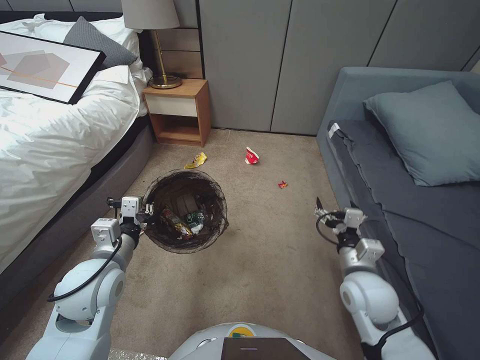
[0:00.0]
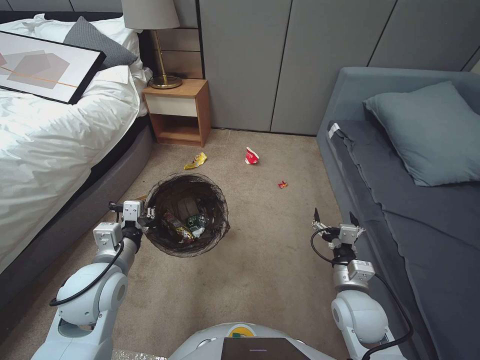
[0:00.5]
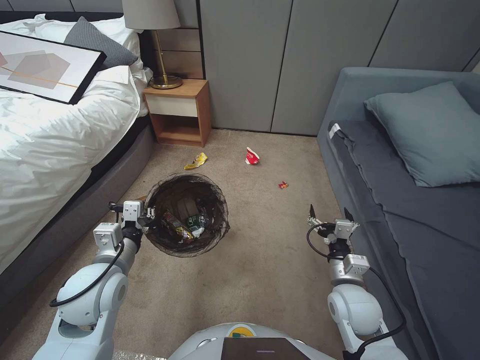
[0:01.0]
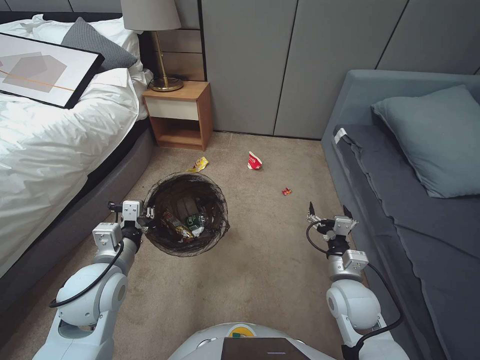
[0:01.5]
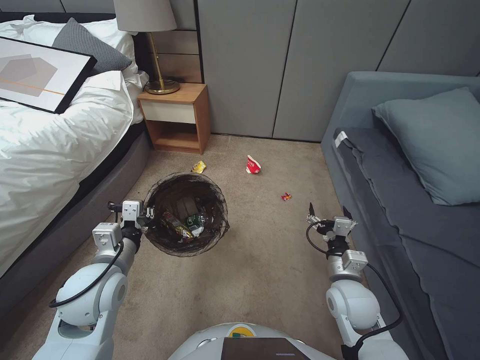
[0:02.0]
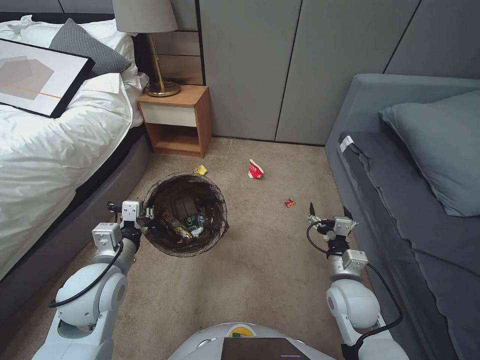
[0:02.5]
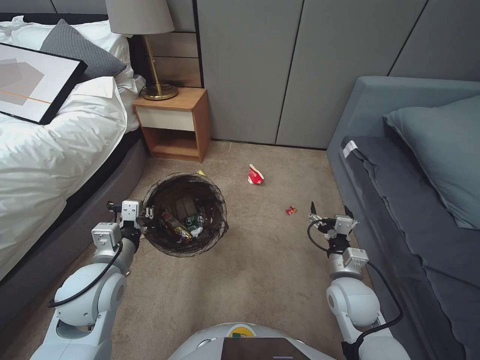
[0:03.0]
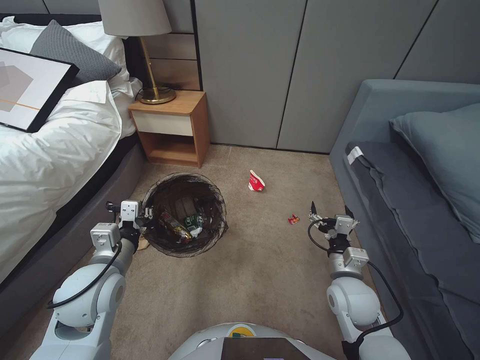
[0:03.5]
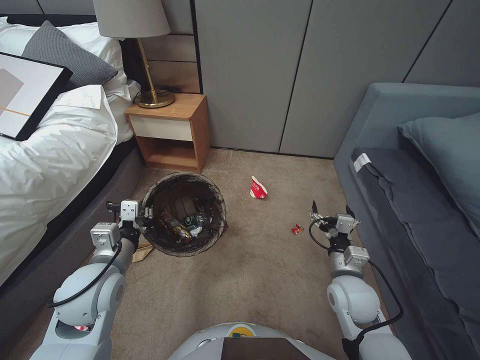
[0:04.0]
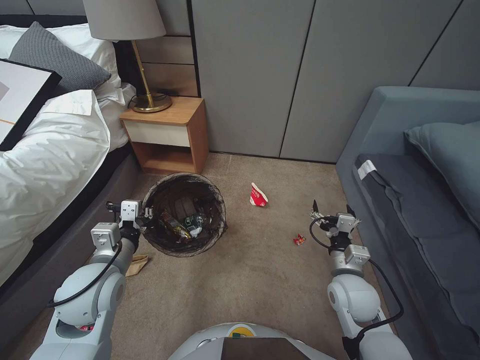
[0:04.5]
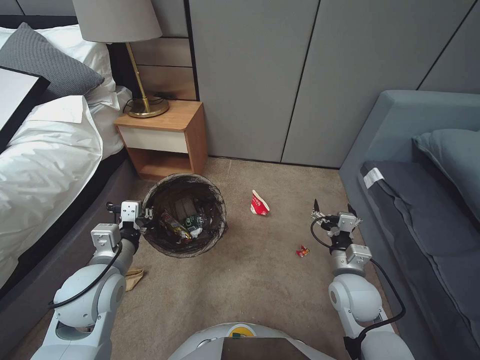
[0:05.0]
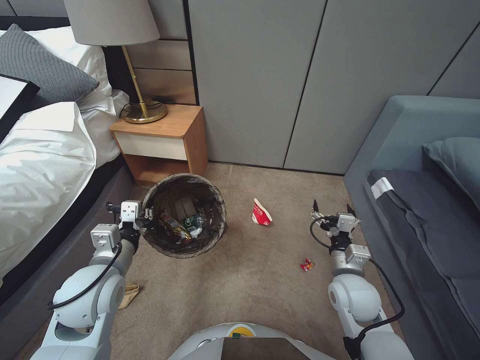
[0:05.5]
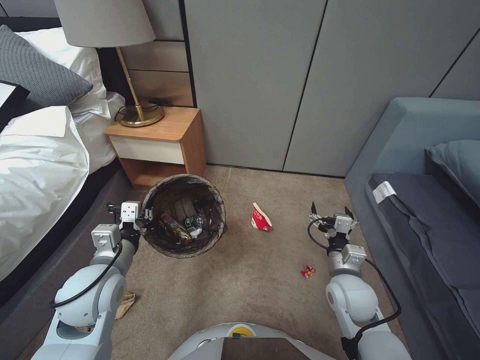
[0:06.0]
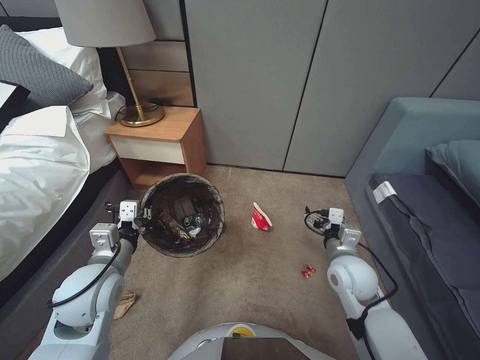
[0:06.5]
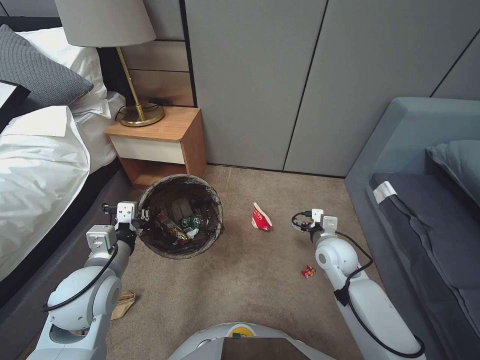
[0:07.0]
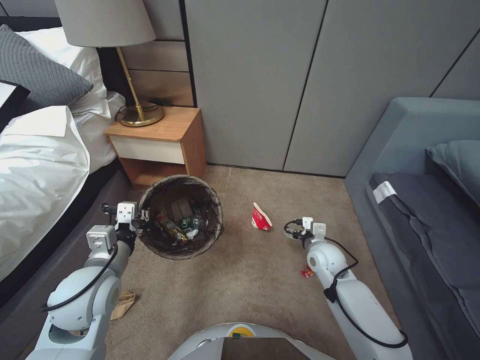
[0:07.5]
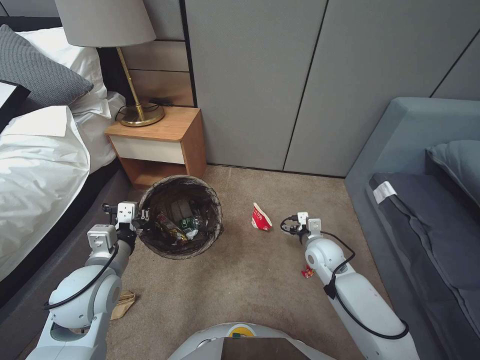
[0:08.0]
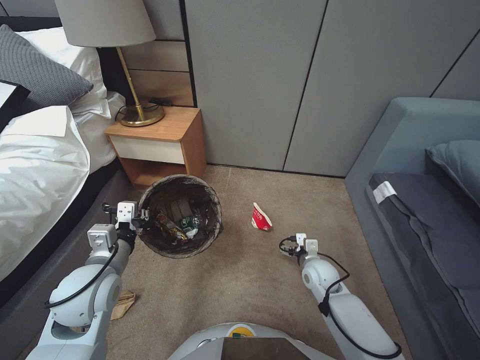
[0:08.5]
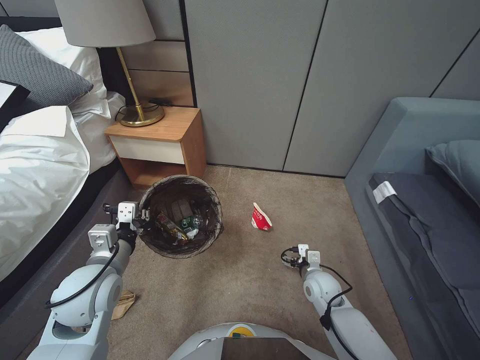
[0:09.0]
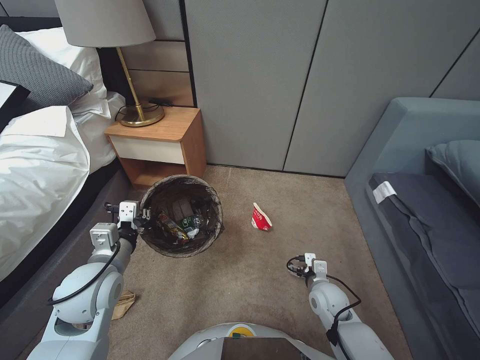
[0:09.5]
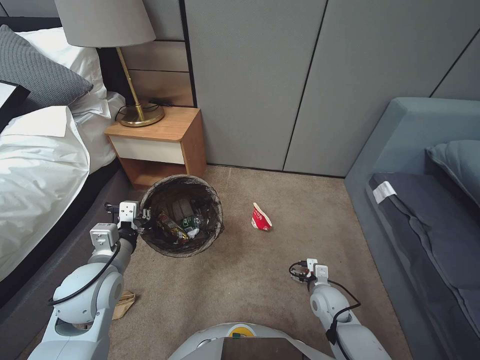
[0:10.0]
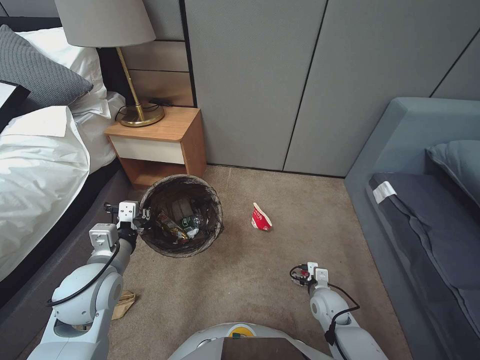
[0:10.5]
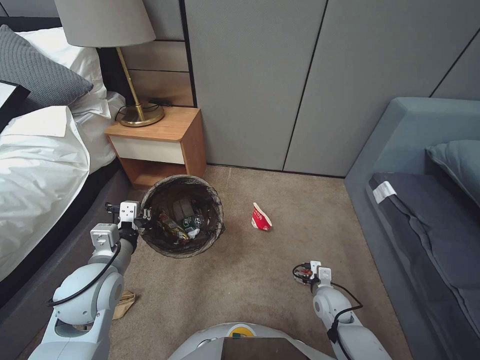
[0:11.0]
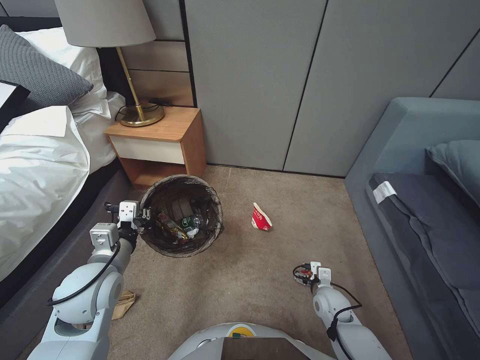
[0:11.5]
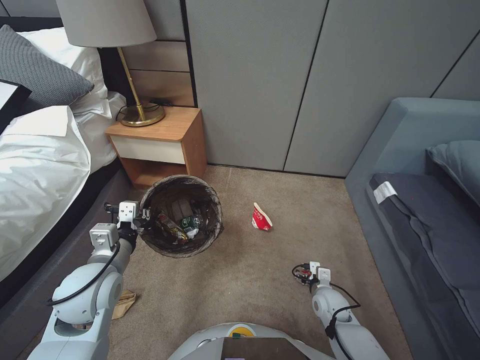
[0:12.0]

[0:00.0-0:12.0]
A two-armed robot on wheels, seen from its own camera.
Task of the whole recording: Pick up the trash bin, then pick up the garbage from the floor and place it into the trash bin.
0:00.0 to 0:02.0: The right gripper travels downward by approximately 5 cm.
0:06.0 to 0:08.0: The right gripper heads forward, covering about 10 cm.
0:08.0 to 0:10.0: The right gripper goes roughly 15 cm downward and backward.
0:10.0 to 0:12.0: There are only small adjustments of the grippers.

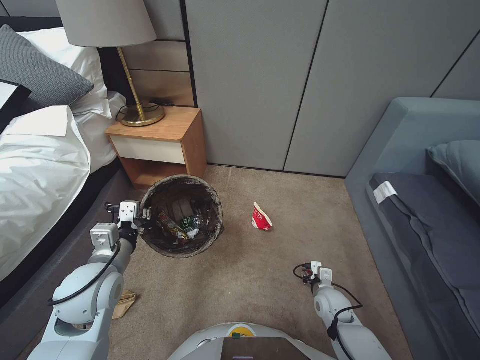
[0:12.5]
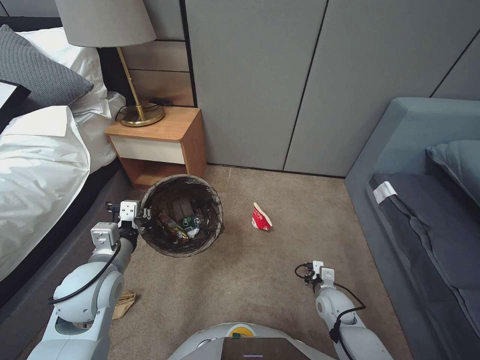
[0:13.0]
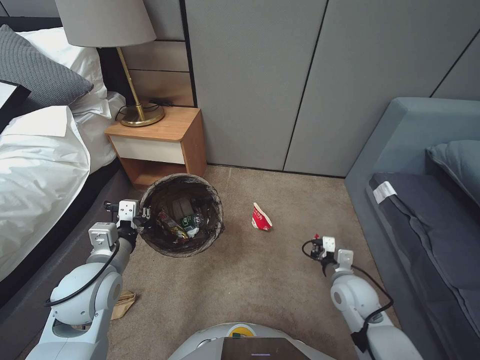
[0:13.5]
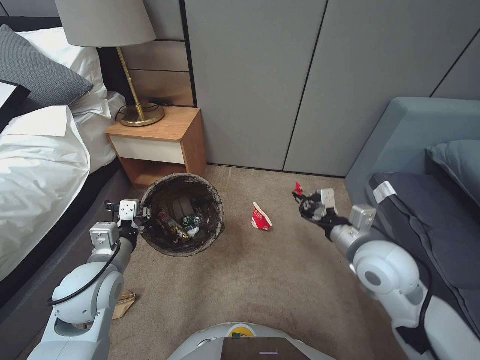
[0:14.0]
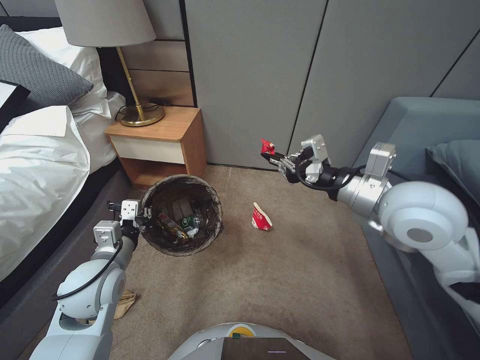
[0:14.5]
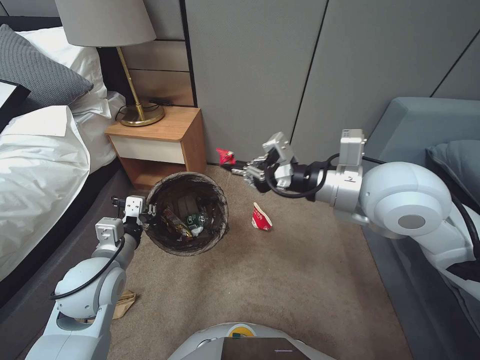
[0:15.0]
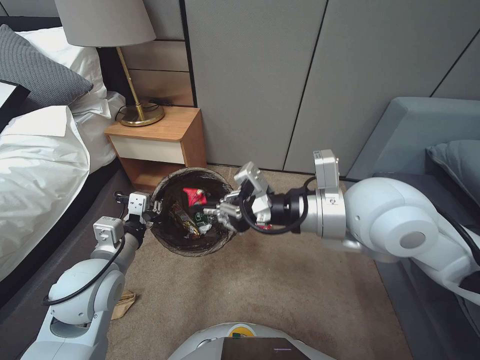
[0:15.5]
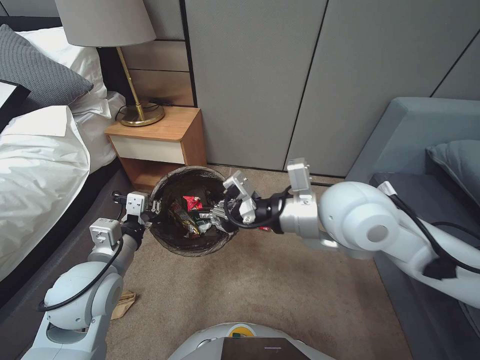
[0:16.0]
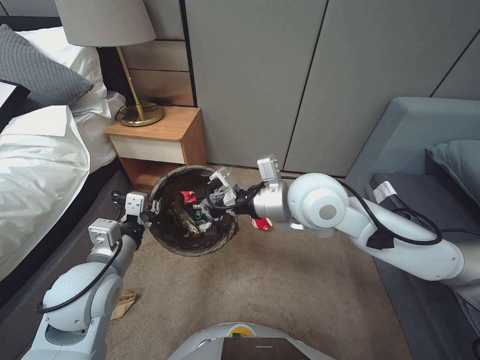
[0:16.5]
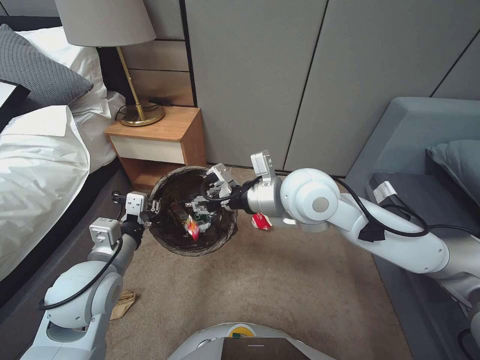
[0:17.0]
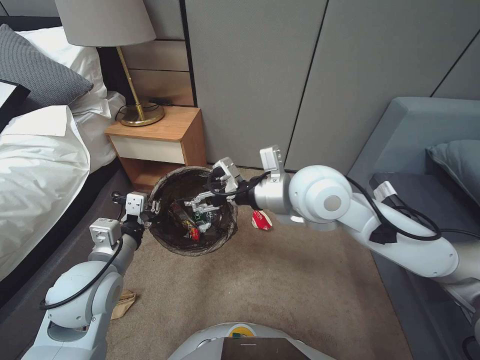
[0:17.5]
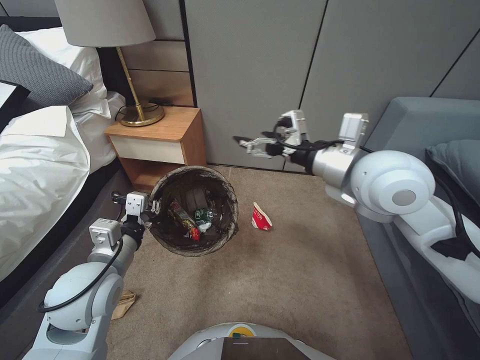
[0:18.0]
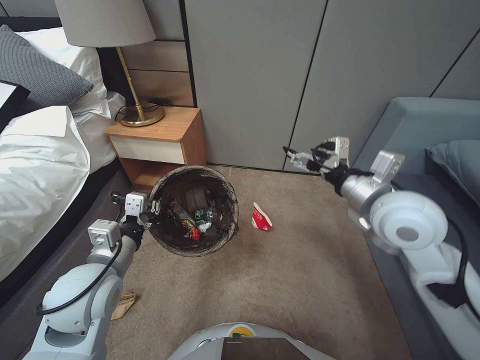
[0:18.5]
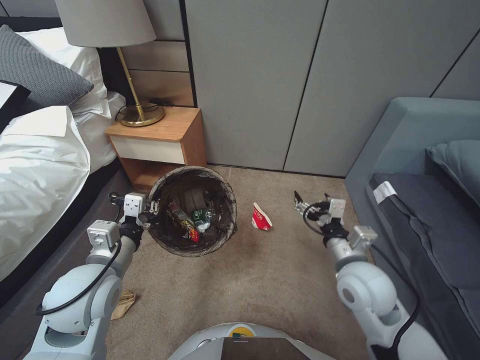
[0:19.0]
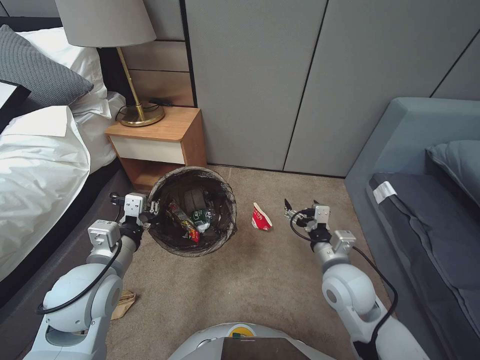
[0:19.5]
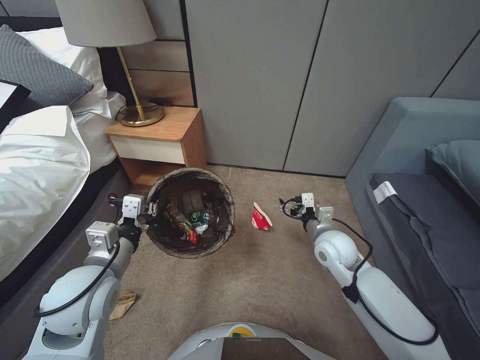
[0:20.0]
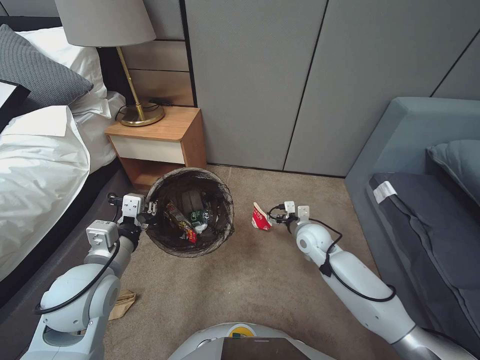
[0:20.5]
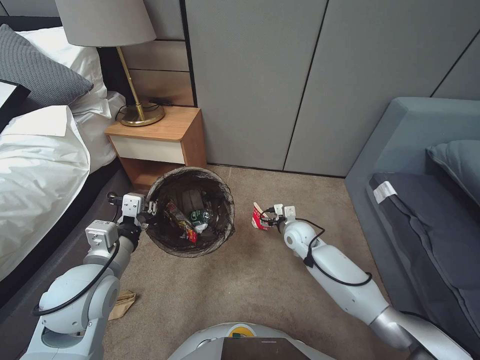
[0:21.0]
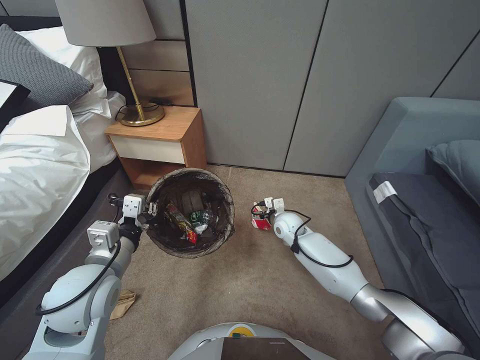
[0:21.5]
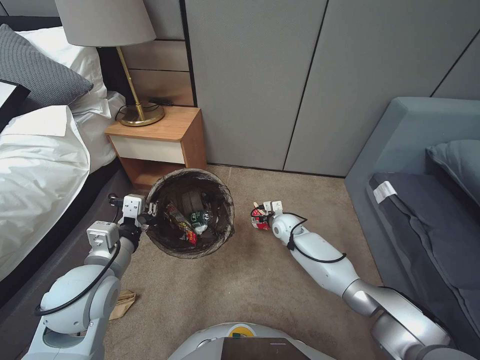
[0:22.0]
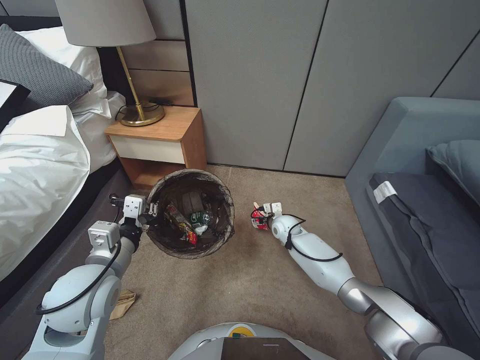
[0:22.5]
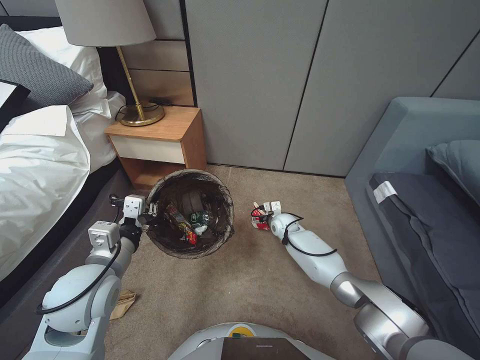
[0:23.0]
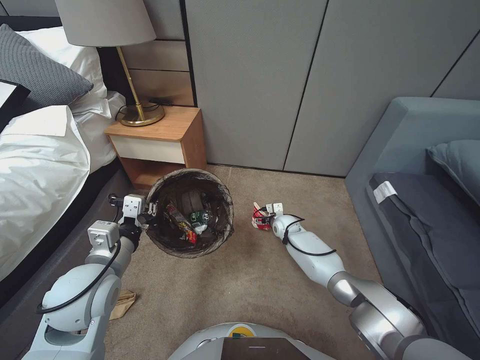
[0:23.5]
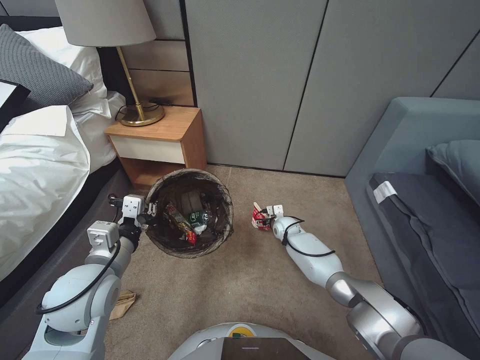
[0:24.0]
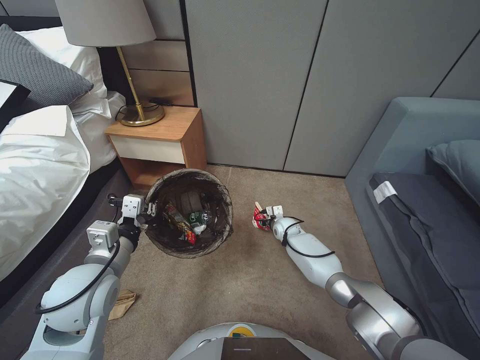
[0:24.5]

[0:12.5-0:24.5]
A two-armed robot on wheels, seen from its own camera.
Task of the whole recording: Pick up the trash bin, then pick up the garbage from the floor and place it into the trash bin.
0:12.5 to 0:14.5: The right gripper goes about 40 cm upward, and closes up.
0:14.5 to 0:16.5: The right gripper travels to the left by about 15 cm.
0:16.5 to 0:18.5: The right gripper travels to the right by some 15 cm, and opens its fingers.
0:18.5 to 0:20.5: The right gripper travels downward by roughly 25 cm.
0:20.5 to 0:22.5: The right gripper is displaced downward, forward and to the left by roughly 15 cm.
0:22.5 to 0:24.5: The right gripper closes.

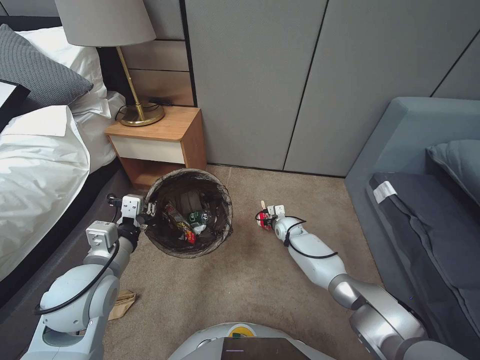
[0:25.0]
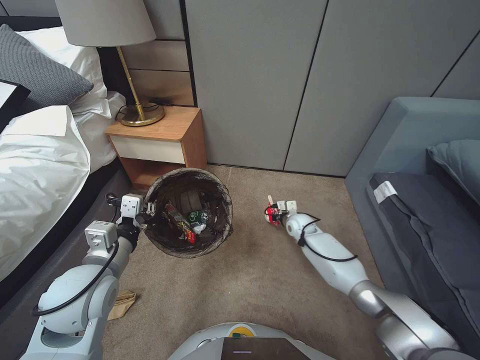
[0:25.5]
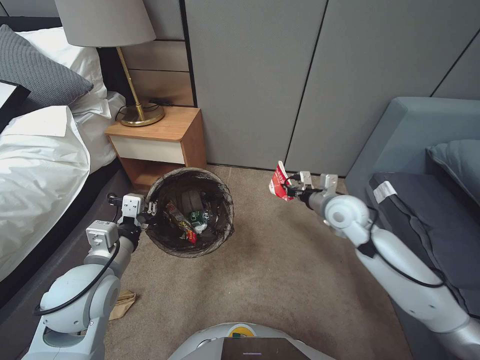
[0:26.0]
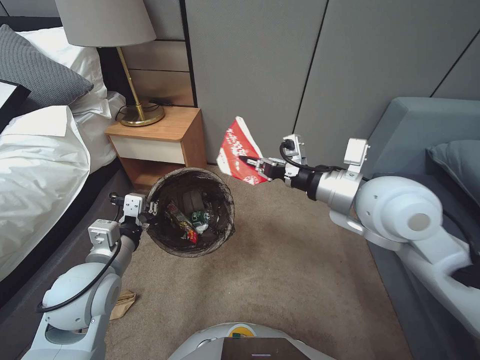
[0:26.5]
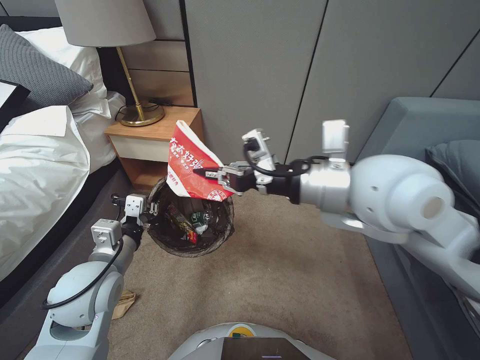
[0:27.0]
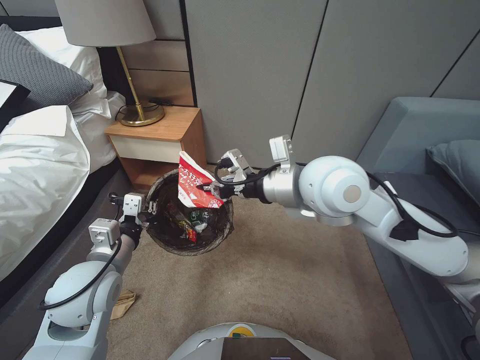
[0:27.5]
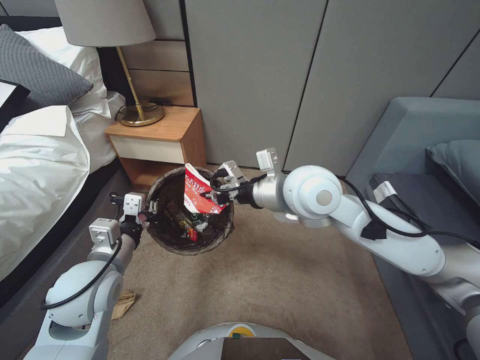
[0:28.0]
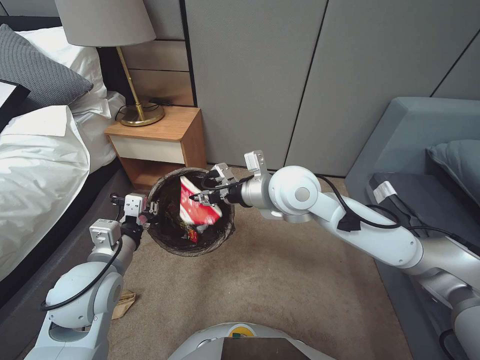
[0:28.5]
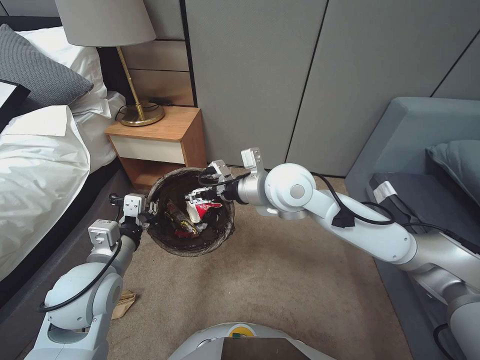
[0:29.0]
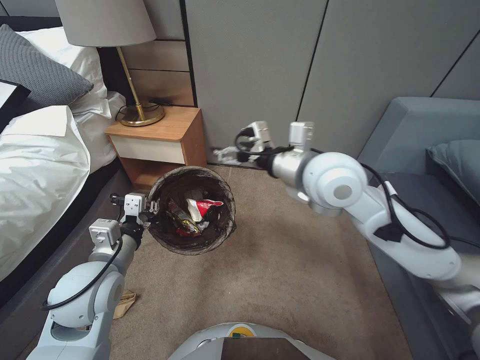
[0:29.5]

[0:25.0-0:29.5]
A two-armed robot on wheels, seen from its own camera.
Task of the whole recording: Pick up the trash bin, then pick up the garbage from the floor and place it into the trash bin.
0:25.0 to 0:27.0: The right gripper is displaced upward and backward by roughly 50 cm.
0:27.0 to 0:29.5: The right gripper shifts some 10 cm forward and to the left, and opens its fingers.
